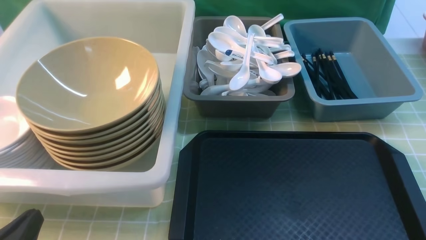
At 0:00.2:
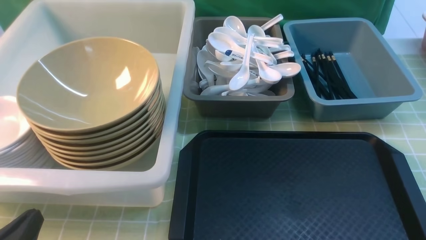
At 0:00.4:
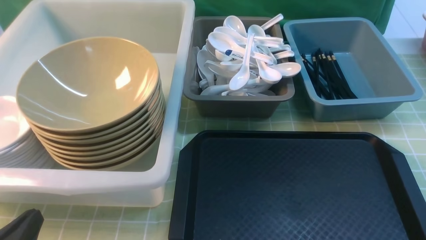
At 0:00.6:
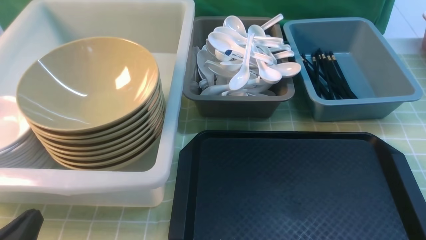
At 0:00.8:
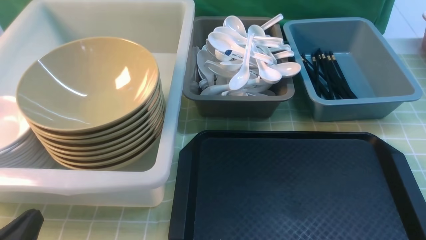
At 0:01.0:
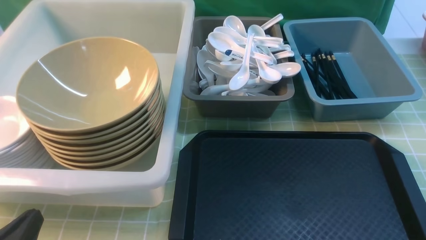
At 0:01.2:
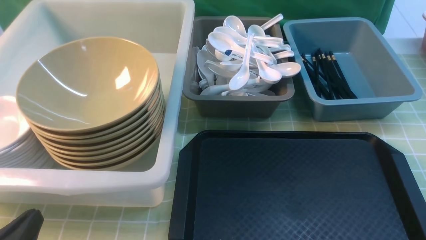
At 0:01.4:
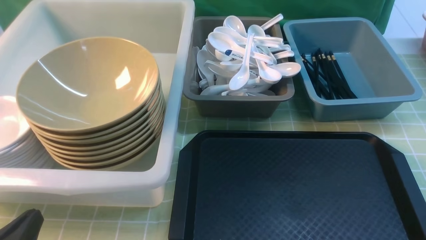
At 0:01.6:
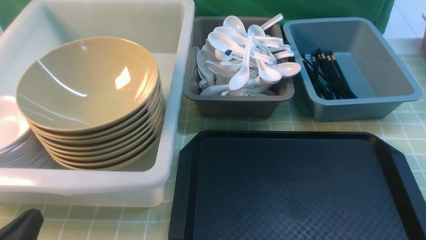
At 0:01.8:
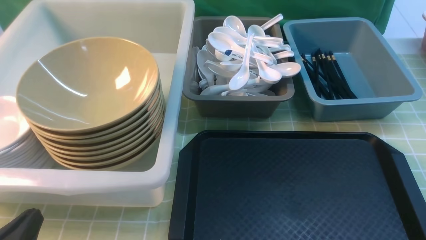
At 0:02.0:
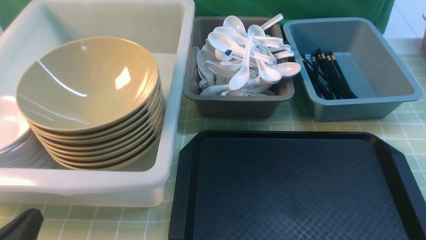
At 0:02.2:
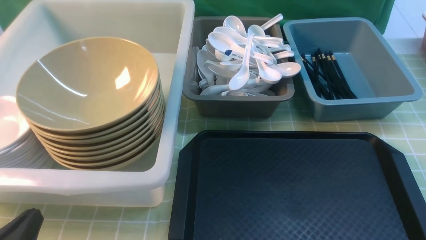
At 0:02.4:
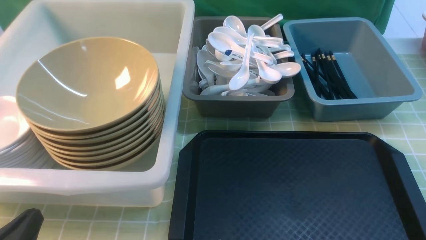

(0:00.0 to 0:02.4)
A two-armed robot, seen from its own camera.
Task of the whole recording: on green table put chopsticks spoon bowls plates into blue grey white boxes.
0:01.2 - 0:02.4: The two grippers keep their place.
